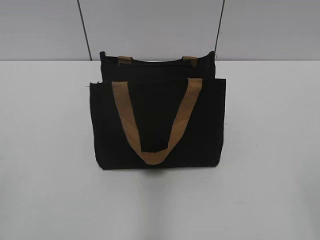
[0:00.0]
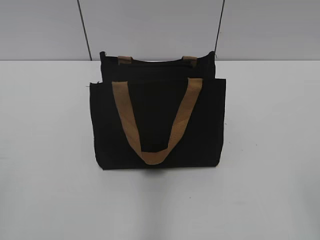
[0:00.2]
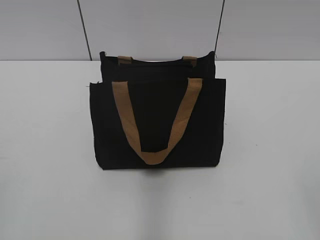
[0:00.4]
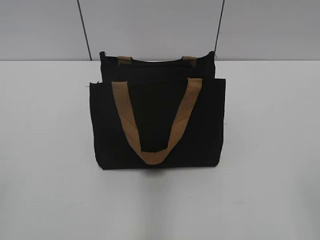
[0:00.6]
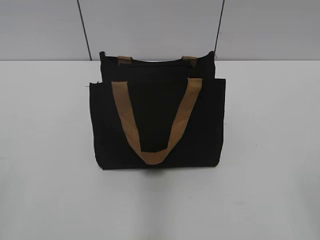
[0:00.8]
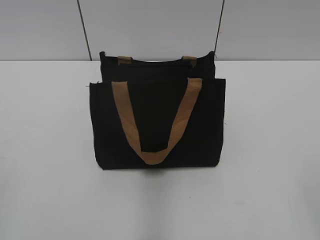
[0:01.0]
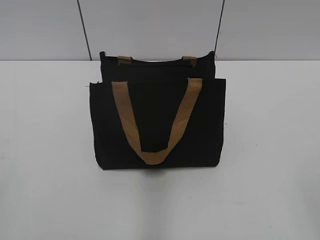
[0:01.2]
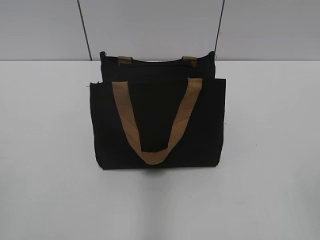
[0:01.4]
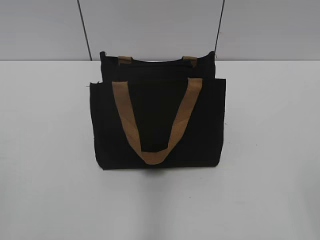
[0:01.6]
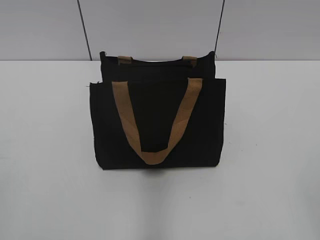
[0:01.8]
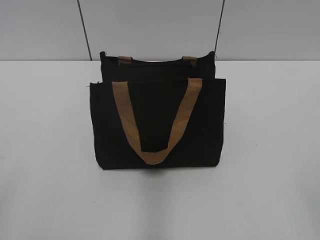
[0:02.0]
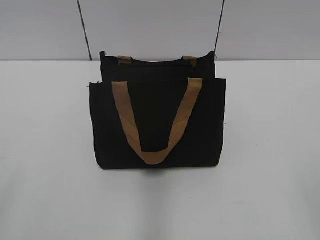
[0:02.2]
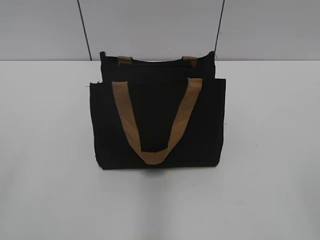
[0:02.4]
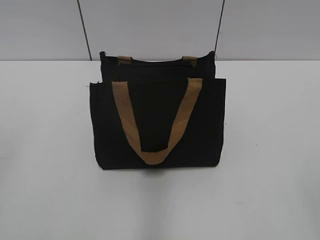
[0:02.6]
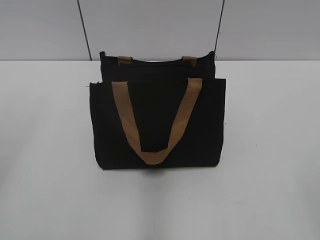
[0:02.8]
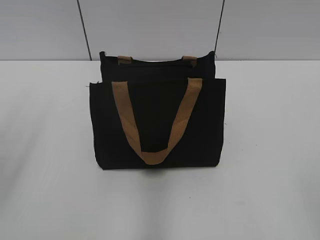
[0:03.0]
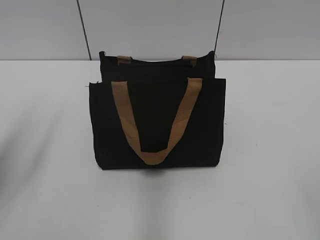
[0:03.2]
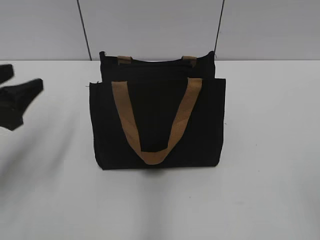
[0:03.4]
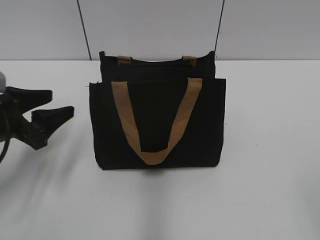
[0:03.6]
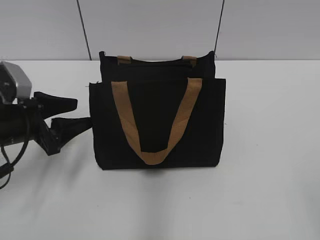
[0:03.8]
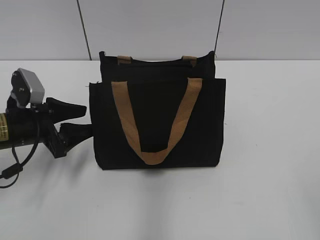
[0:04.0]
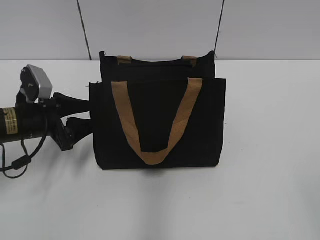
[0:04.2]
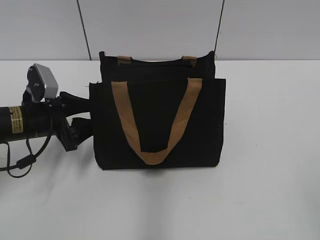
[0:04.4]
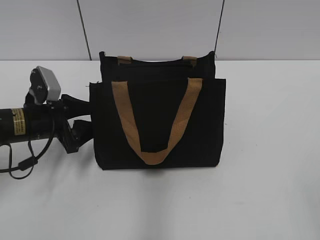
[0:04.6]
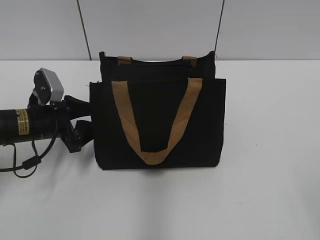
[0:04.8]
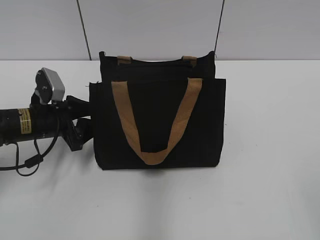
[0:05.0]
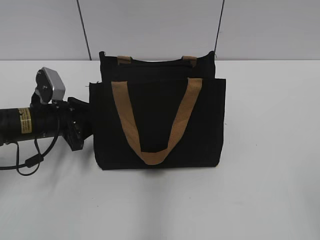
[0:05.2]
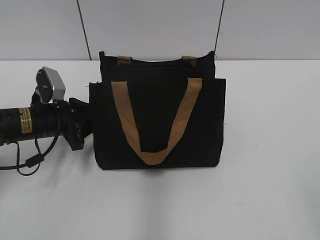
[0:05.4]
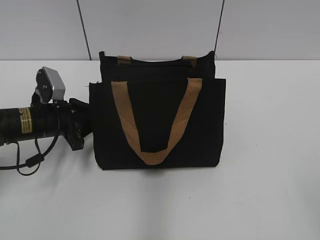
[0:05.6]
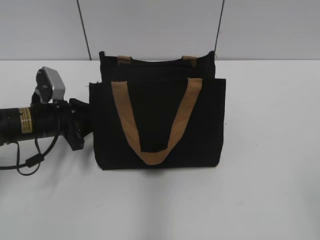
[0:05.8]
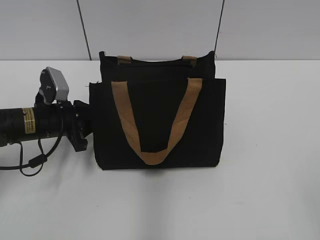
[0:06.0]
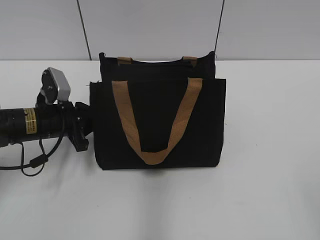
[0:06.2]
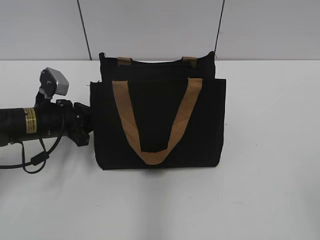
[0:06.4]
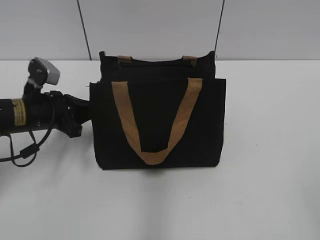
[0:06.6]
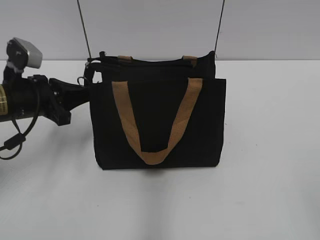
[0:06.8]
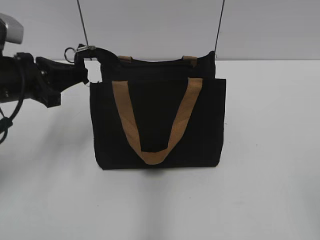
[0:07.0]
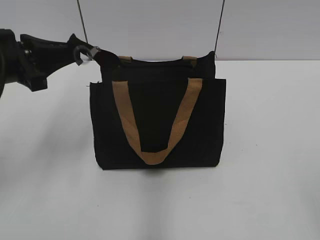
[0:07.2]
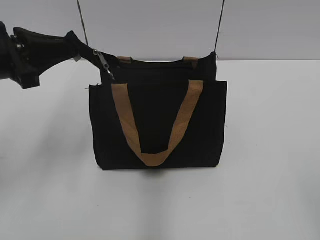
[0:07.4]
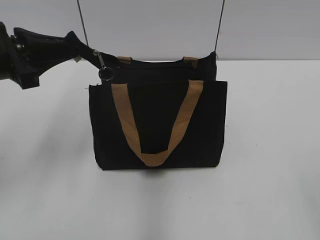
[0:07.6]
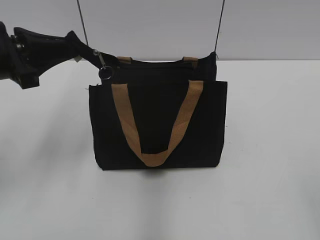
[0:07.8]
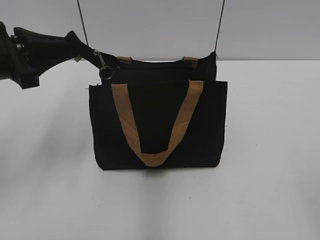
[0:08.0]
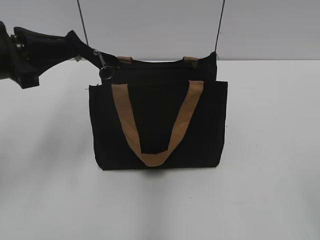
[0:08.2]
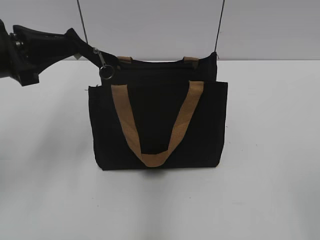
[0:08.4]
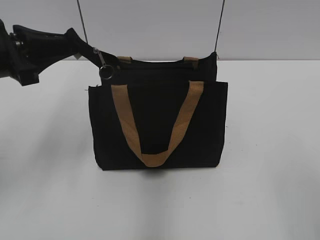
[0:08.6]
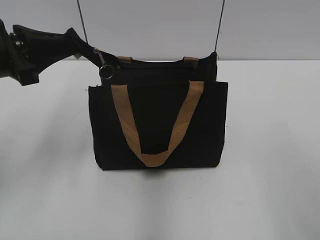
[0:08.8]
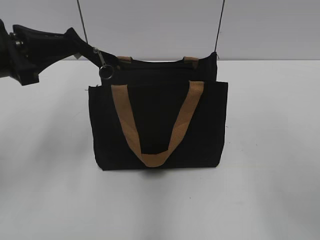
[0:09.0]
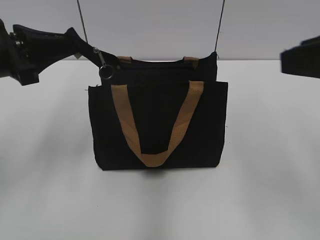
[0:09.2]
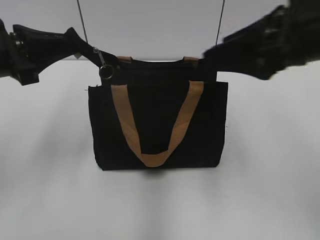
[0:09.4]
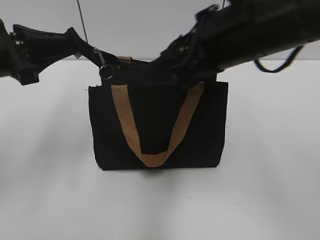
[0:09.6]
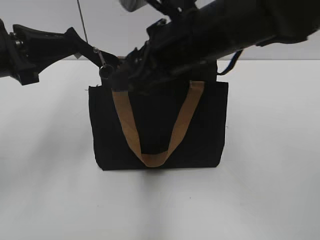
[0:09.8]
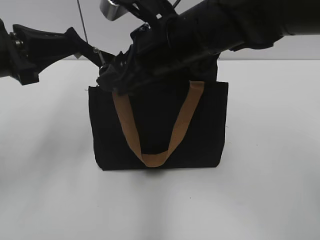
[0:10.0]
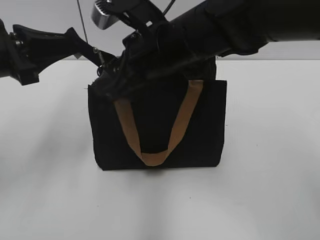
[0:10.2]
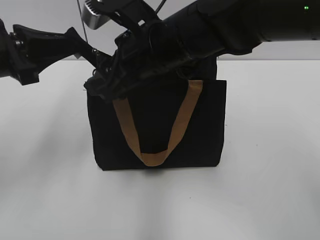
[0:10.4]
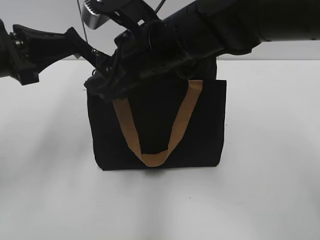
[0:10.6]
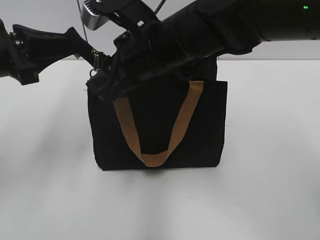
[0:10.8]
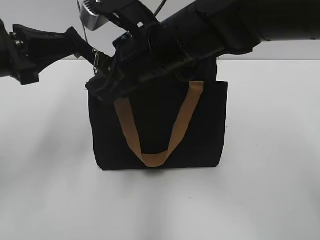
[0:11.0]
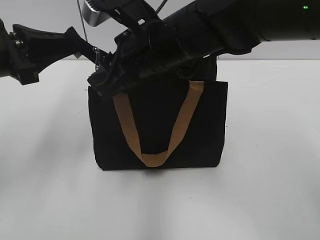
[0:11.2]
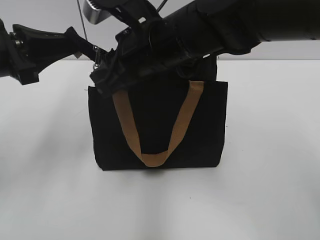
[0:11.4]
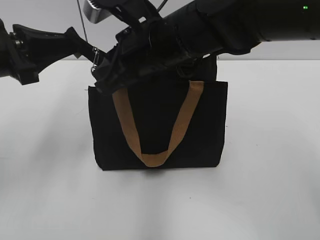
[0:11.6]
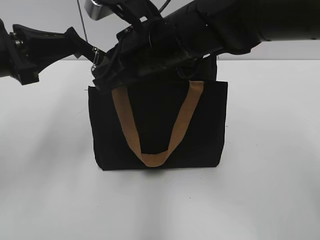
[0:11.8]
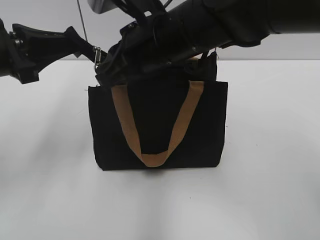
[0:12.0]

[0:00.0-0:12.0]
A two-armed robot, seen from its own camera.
0:03.0 to 0:04.4: The left gripper is displaced downward, forward and to the right by approximately 30 cm.
0:04.4 to 0:06.0: The left gripper closes up.
0:06.0 to 0:07.6: The left gripper shifts roughly 15 cm upward.
0:09.0 to 0:10.4: The right gripper moves to the left and forward, some 30 cm.
0:10.4 to 0:12.0: The right gripper closes.

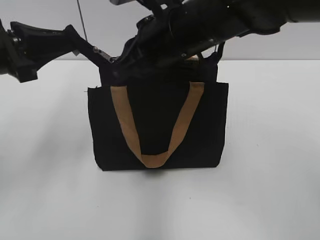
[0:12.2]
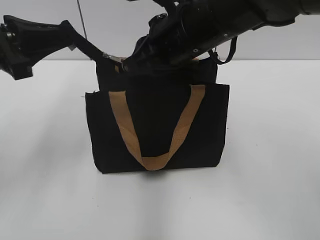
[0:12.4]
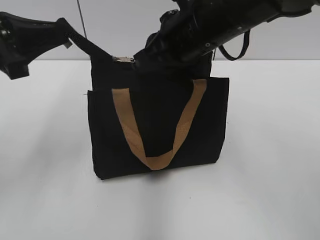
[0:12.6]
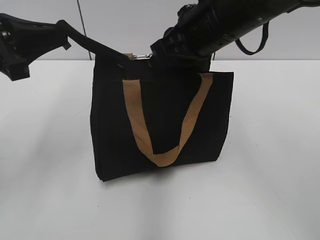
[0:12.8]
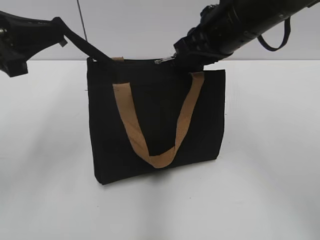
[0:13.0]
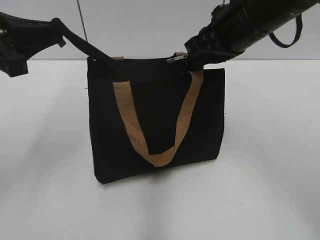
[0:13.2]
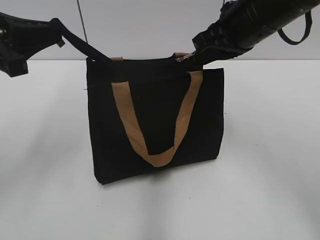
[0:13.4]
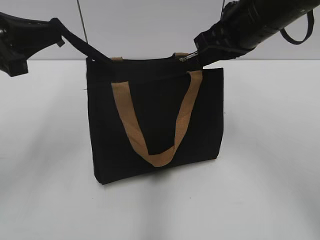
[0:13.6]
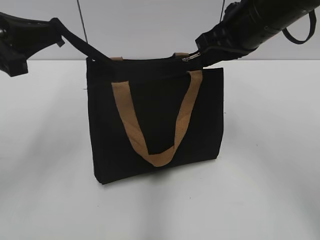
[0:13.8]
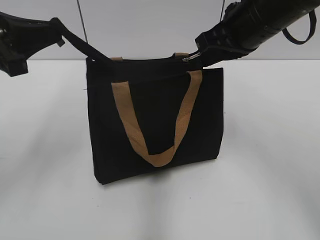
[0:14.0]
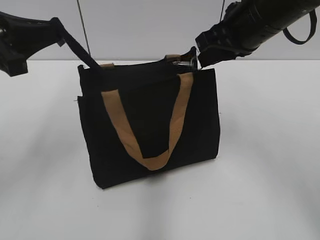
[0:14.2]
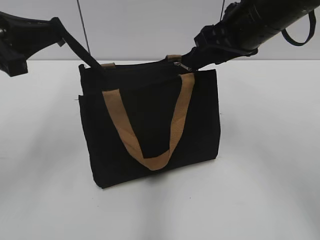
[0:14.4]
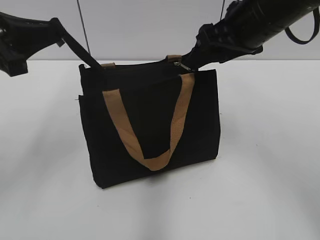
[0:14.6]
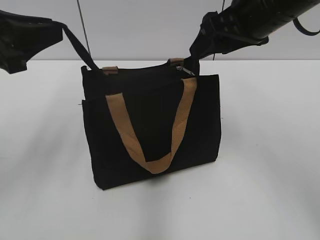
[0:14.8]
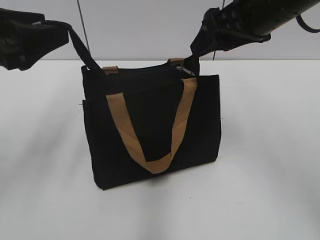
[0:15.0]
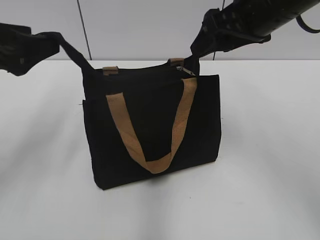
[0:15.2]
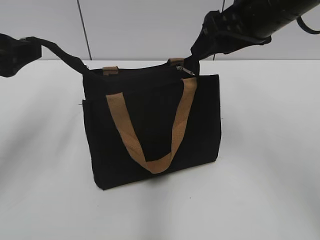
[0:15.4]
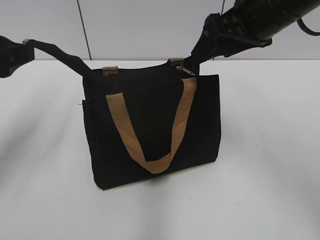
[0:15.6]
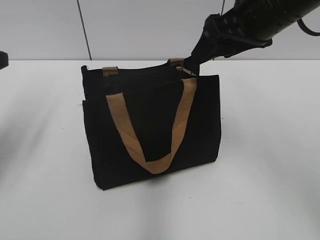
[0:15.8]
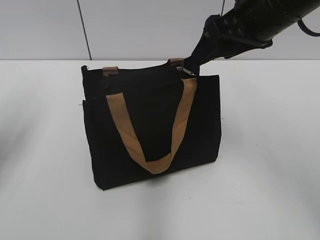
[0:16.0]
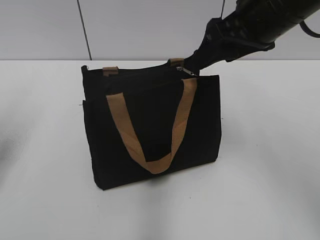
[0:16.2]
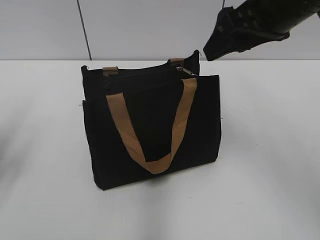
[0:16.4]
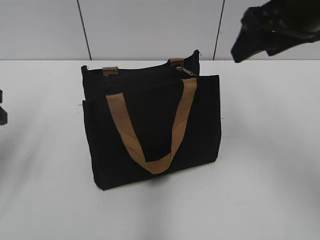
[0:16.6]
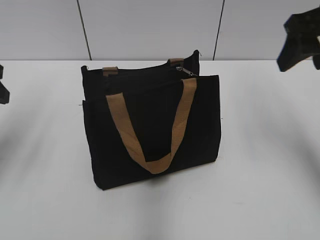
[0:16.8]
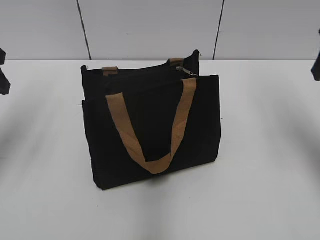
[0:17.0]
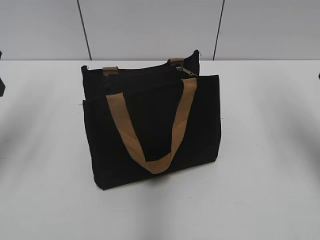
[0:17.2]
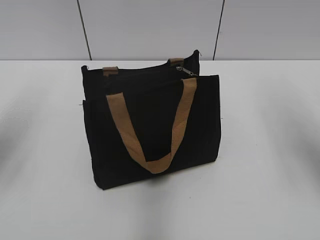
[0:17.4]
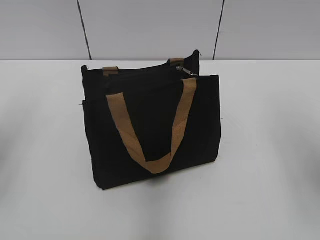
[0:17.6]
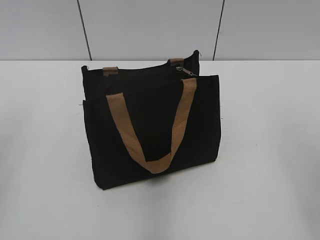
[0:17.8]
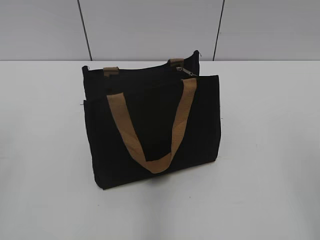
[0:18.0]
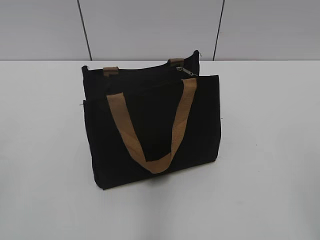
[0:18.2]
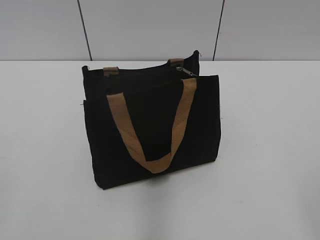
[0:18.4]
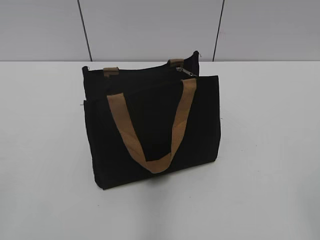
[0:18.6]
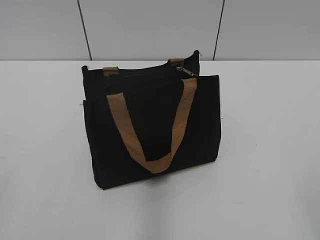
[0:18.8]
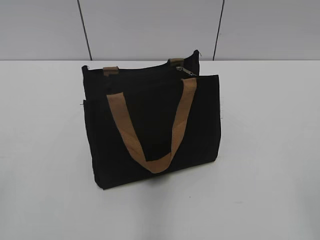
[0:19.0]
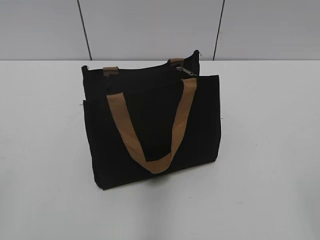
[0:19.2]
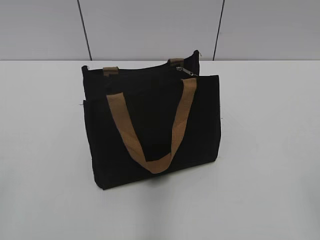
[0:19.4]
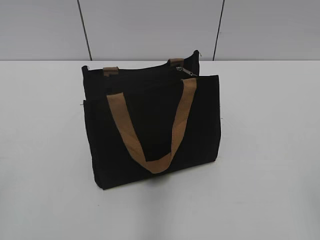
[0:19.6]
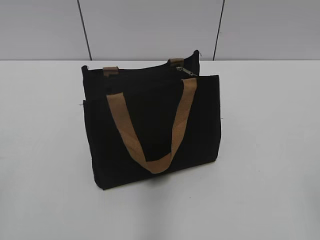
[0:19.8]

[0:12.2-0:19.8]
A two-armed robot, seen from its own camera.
Step, 0:12.2 to 0:14.4: Zip up the bag with your right hand.
Step, 0:14.6 to 0:15.8: Grab the zipper with your left hand.
0:12.2 to 0:13.8: The right gripper goes some 10 cm to the right.
0:13.8 to 0:15.2: The left gripper opens its fingers, while the right gripper opens.
0:15.2 to 0:16.8: The right gripper is displaced to the right by about 5 cm.
0:16.8 to 0:18.2: Both grippers move backward, about 25 cm.

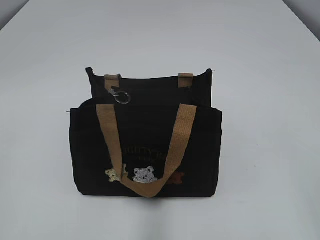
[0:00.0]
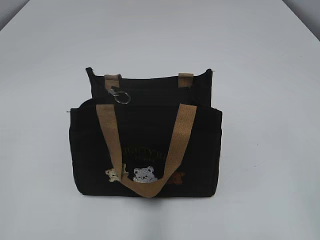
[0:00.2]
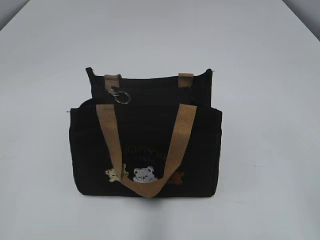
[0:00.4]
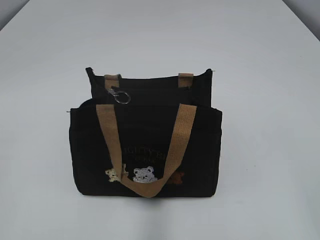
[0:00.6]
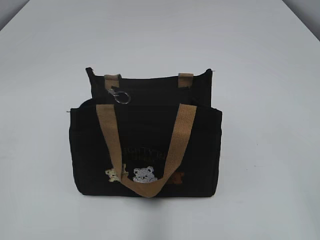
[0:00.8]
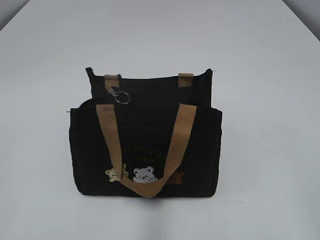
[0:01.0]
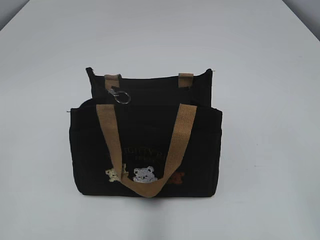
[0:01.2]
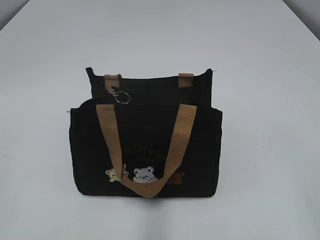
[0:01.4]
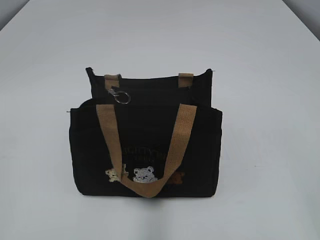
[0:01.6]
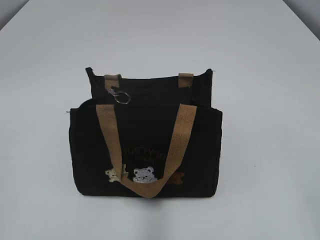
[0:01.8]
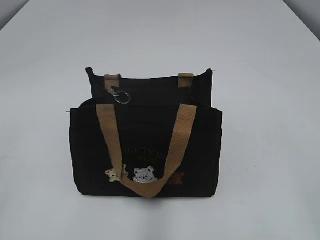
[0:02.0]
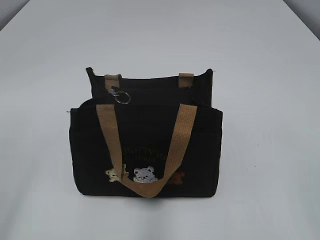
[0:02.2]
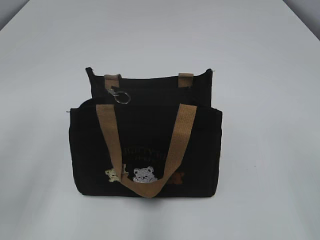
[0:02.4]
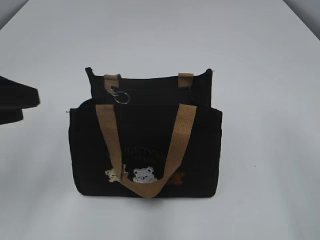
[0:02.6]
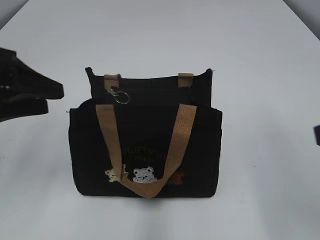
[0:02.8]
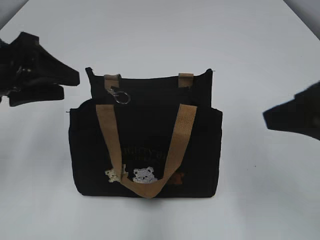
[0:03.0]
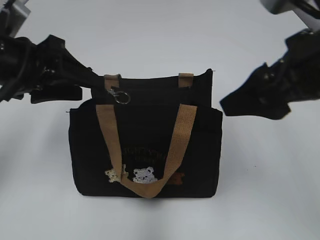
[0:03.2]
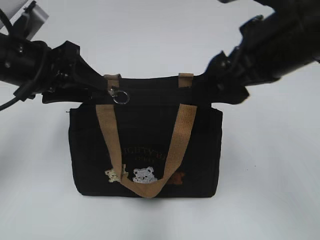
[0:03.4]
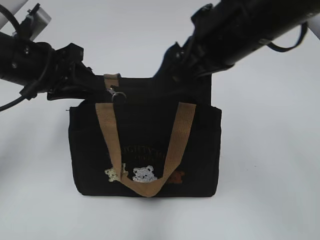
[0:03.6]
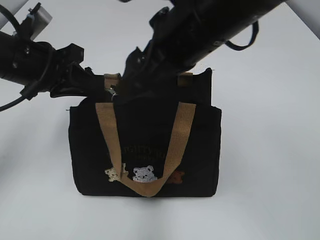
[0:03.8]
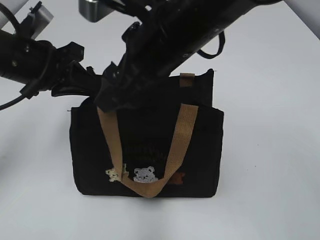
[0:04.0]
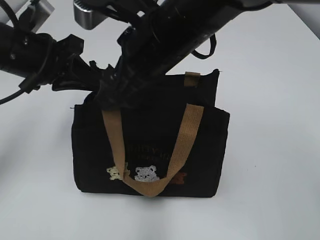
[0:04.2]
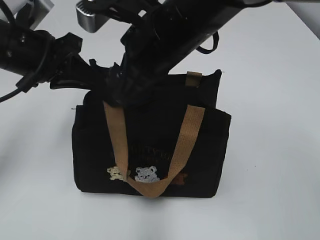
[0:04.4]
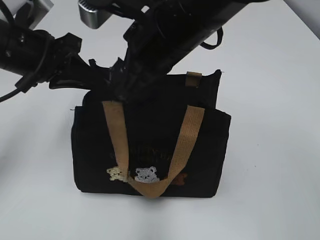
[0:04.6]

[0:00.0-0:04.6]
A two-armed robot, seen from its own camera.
0:01.6 to 0:03.0: The right gripper travels forward by approximately 15 cm. Meanwhile the left gripper travels forward by some 25 cm, and opens up.
0:03.0 to 0:04.6: The right gripper is displaced to the left and forward by about 25 cm. The left gripper moves roughly 5 cm, and closes.
